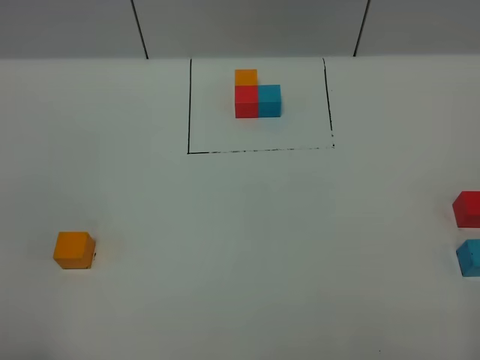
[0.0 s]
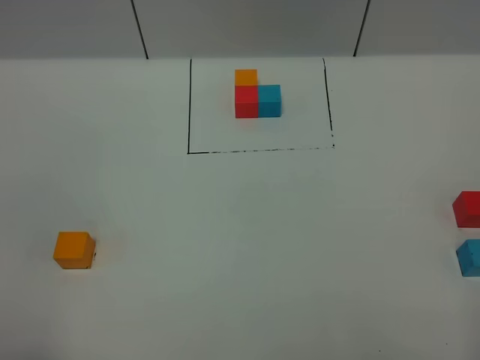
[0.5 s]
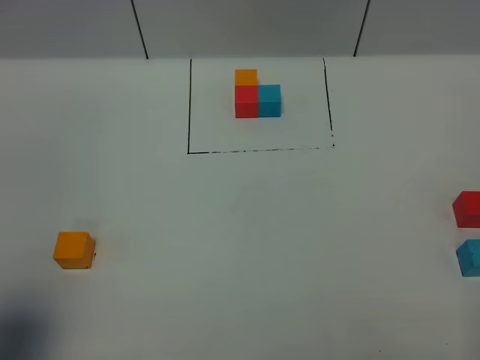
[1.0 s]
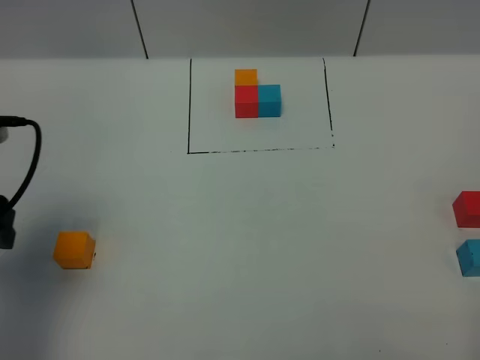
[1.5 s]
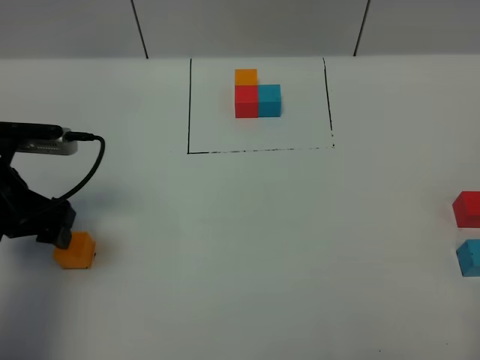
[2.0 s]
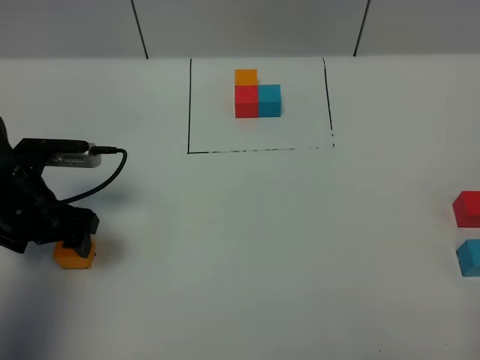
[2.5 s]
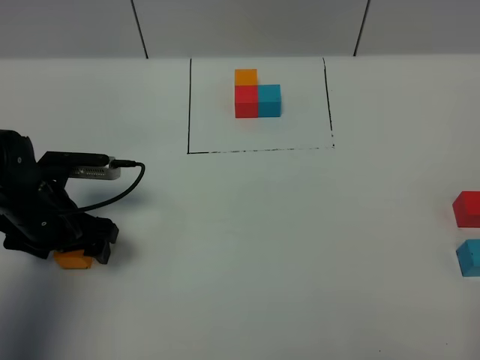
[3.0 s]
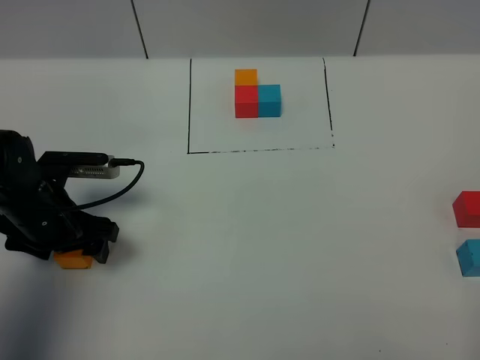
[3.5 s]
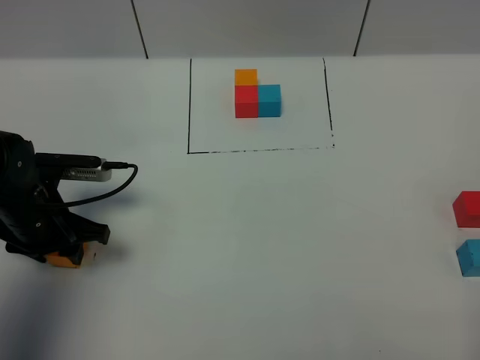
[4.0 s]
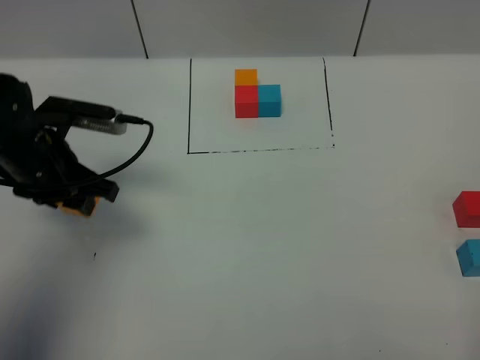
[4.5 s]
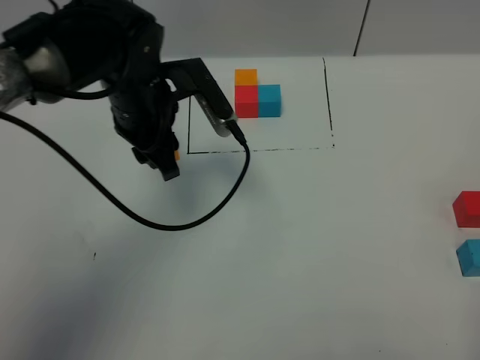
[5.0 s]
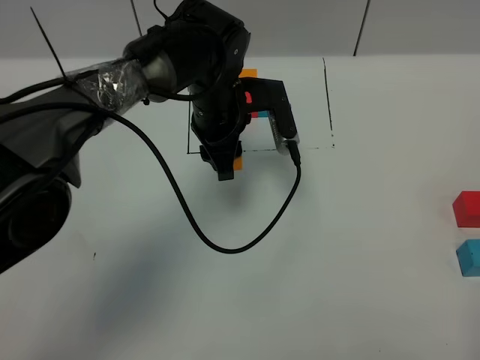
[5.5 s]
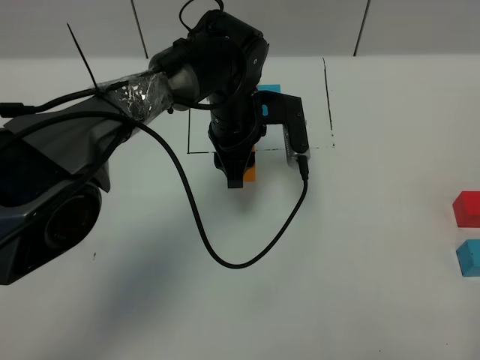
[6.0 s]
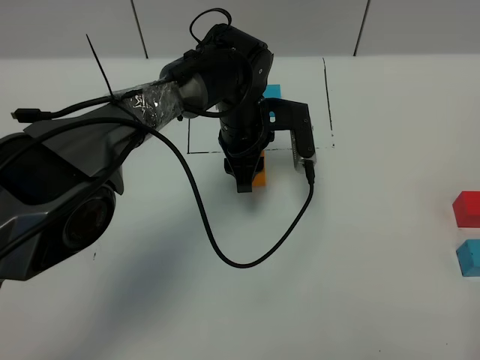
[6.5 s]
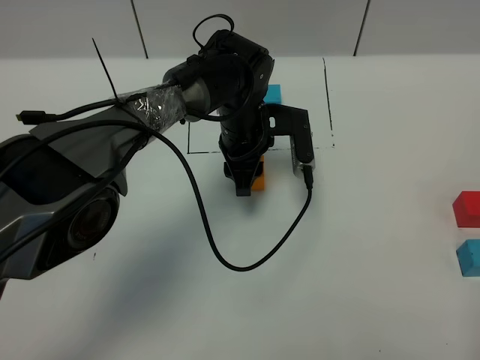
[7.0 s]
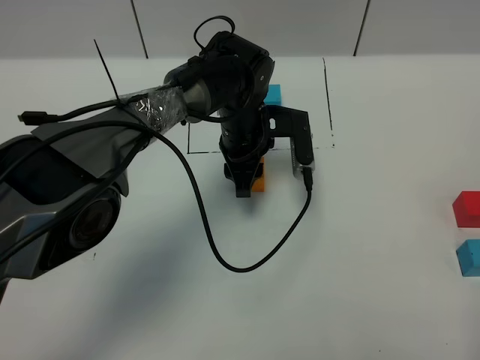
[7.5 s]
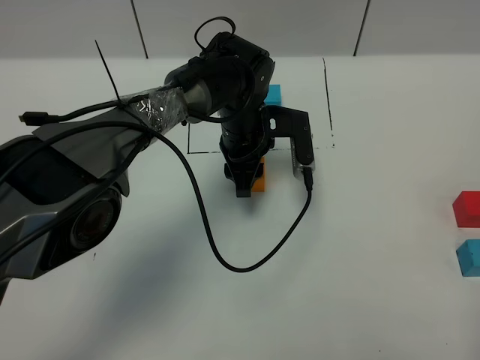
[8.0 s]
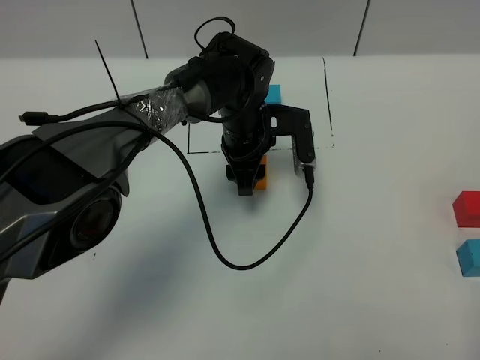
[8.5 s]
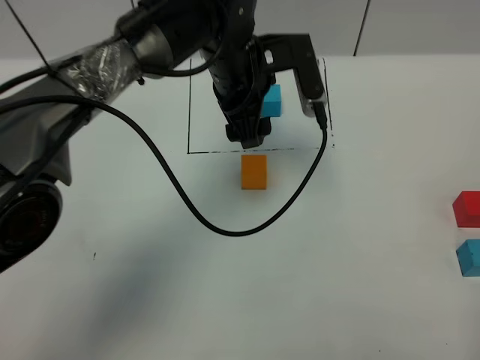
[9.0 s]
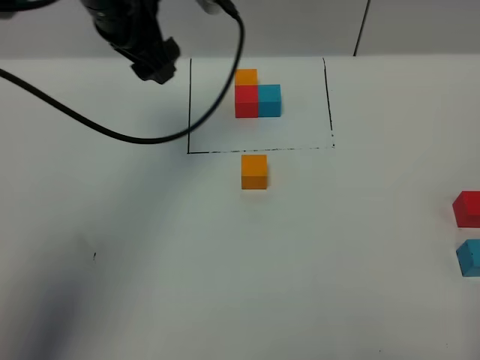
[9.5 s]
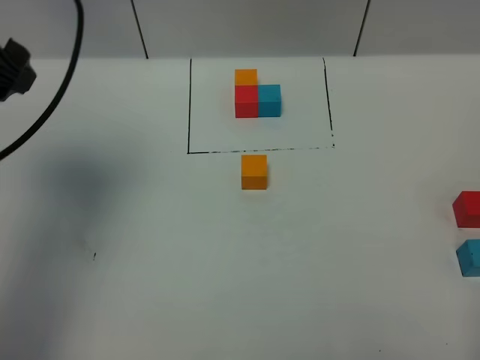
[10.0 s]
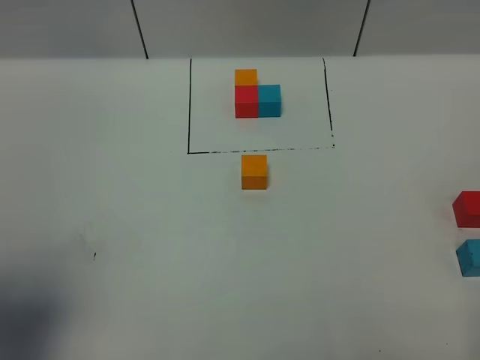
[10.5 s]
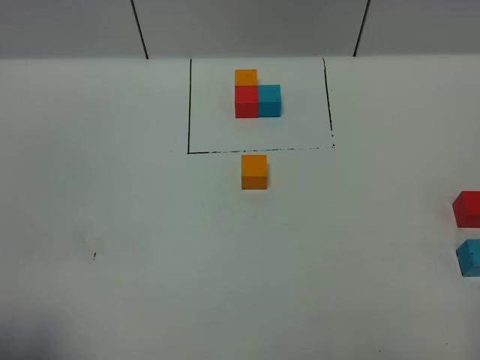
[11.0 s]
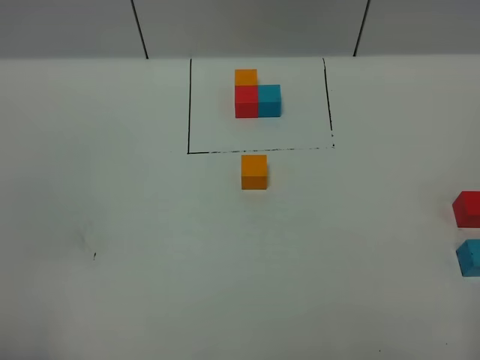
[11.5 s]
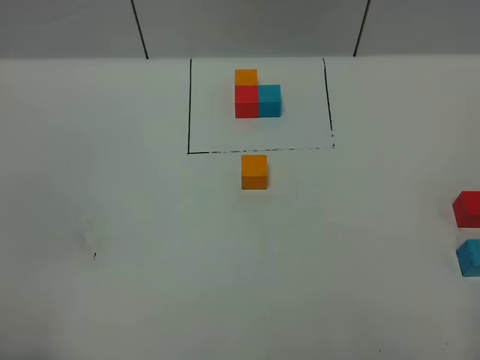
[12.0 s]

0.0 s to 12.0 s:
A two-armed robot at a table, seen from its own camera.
Task of the whole recording: According to the building block template in front, assemble the scattered blocks together.
Step, 0.0 to 8.5 s: Put the orange build block in the center of the table.
0.0 to 2.0 s: The left gripper goes about 25 cm forward.
2.0 to 4.0 s: The left gripper moves downward, roughly 5 cm, and closes.
4.0 to 6.0 s: The left gripper goes about 25 cm to the right and forward.
6.0 to 8.0 s: The grippers make only small movements.
8.0 to 10.0 s: The left gripper is displaced to the left, upward and backward by approximately 40 cm, and opens.
10.0 to 12.0 s: The left gripper is displaced backward by some 30 cm.

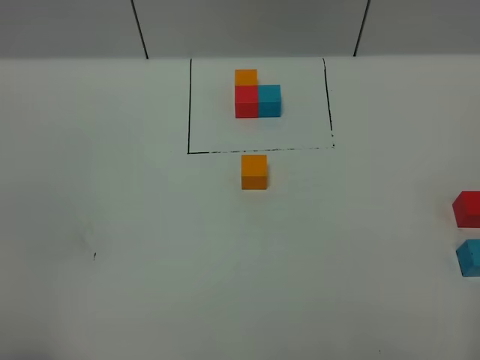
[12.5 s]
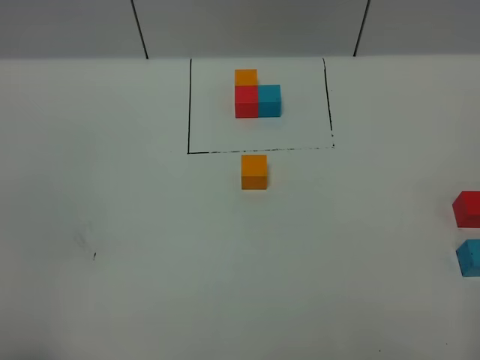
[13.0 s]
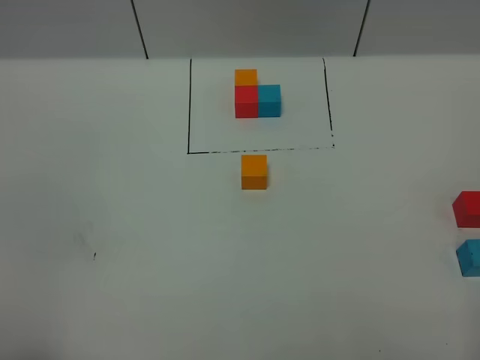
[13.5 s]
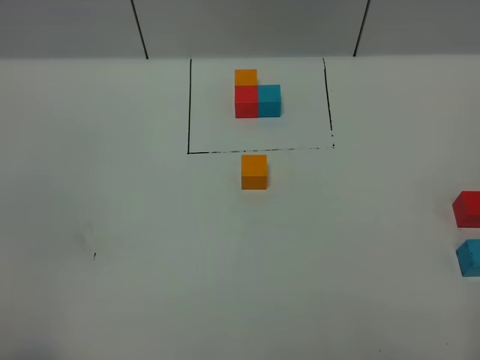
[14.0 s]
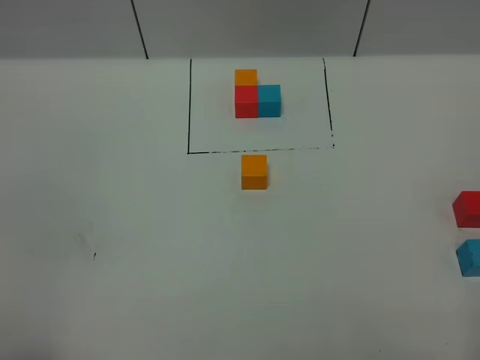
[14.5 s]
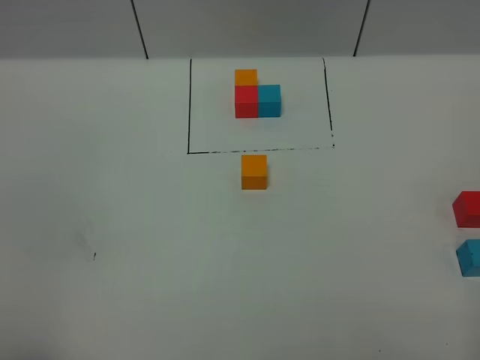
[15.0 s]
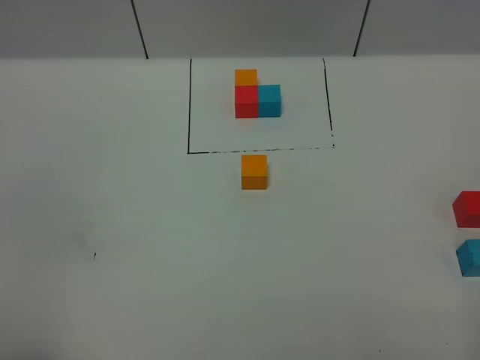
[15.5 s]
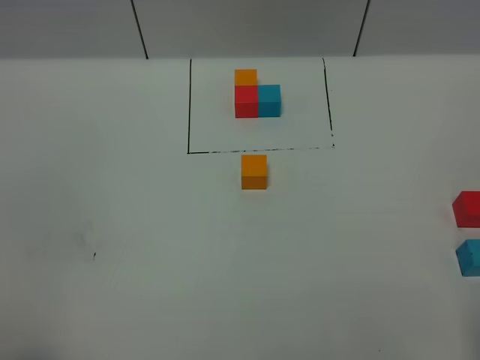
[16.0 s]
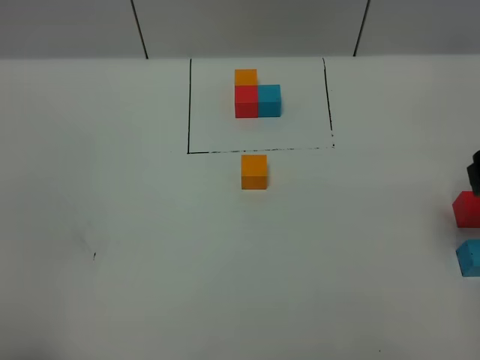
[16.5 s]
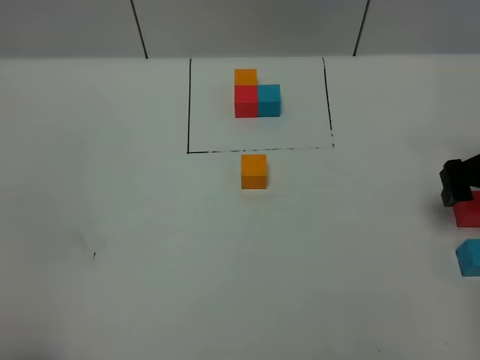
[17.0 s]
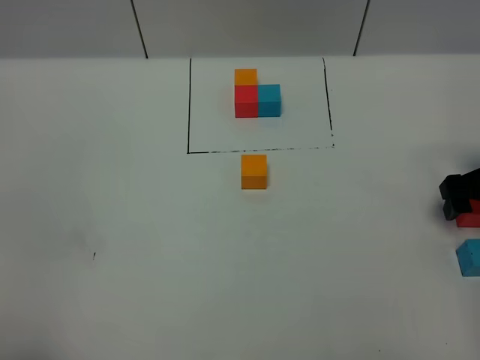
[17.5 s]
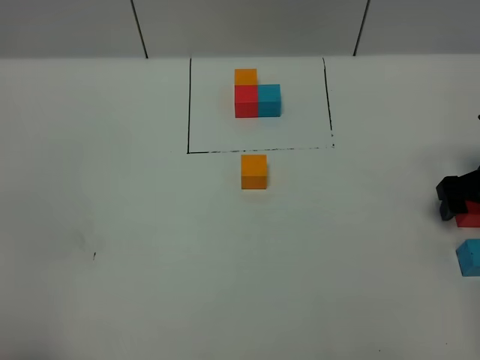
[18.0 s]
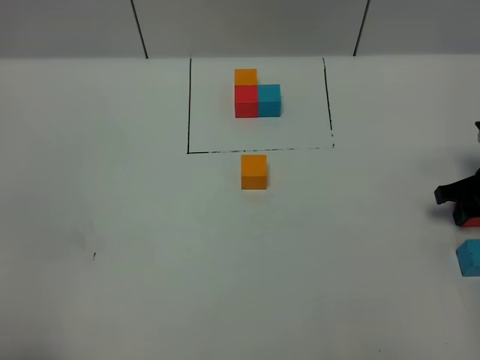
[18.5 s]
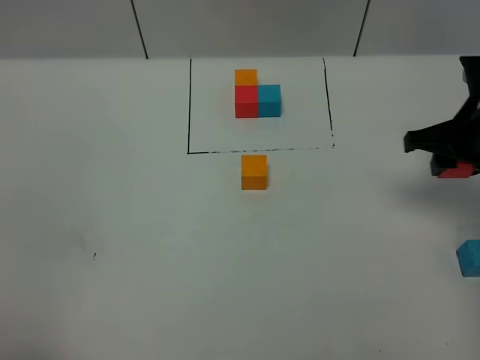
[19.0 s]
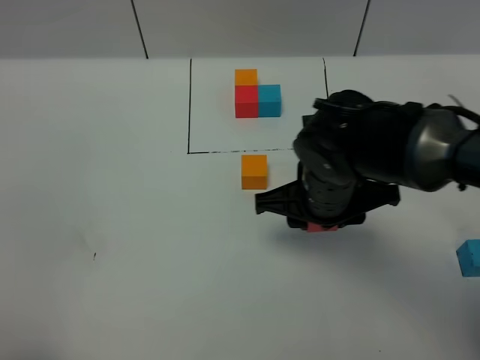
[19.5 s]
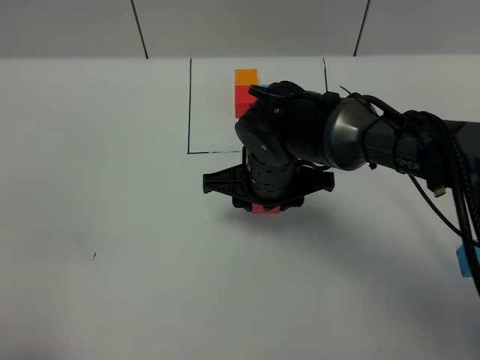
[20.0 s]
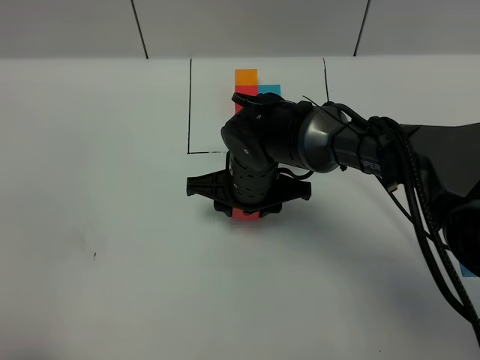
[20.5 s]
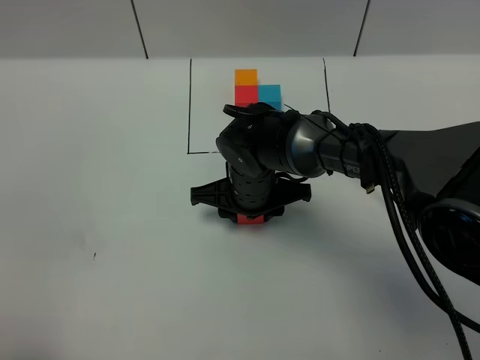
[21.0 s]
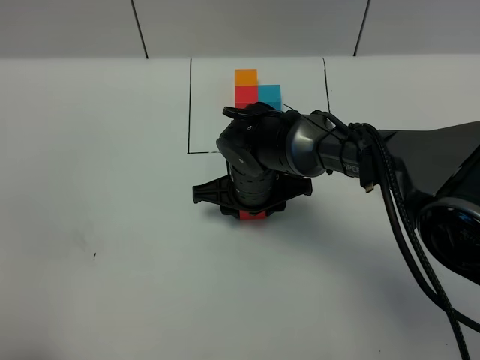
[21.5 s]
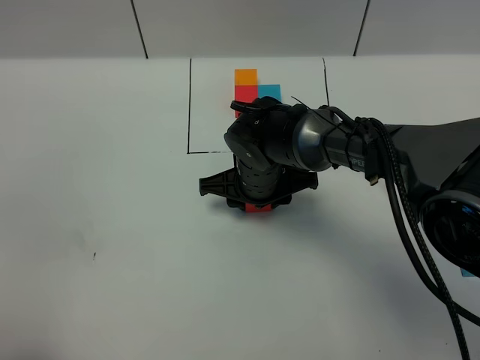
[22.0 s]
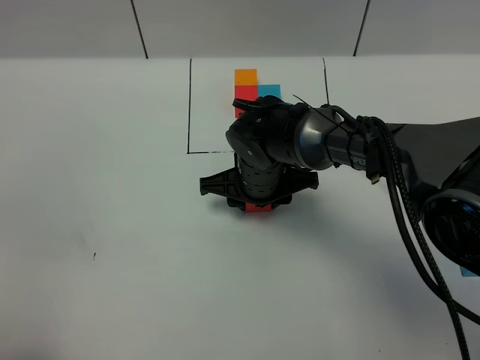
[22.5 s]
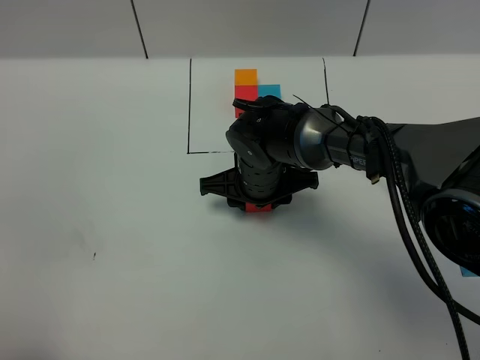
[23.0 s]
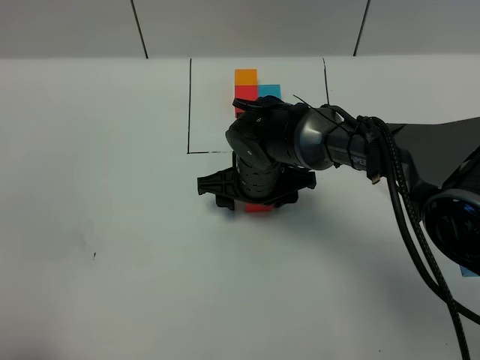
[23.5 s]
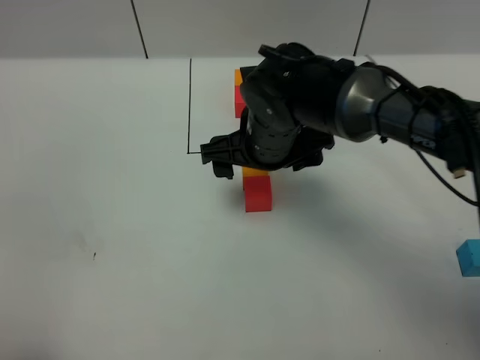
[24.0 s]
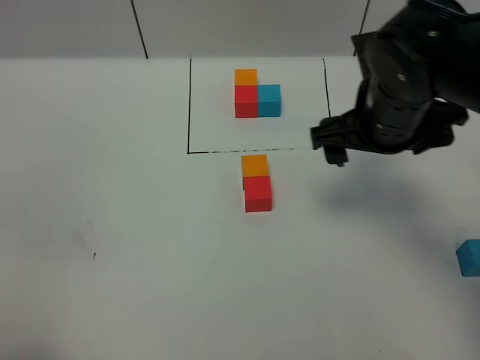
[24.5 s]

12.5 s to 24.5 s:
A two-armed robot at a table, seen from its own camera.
Task of the whole recording: According to the building block template in front, assemble the scattered blocks together.
Step, 12.5 to 23.5 s: Put the red build block on the behind of the orange build block.
12.5 to 14.5 s: Neither gripper changes place.
16.5 to 18.5 s: The right gripper travels downward and forward by approximately 15 cm, and closes up.
18.5 to 20.5 s: The right gripper is displaced to the left by some 35 cm.
20.5 to 22.5 s: The grippers make only small movements.
22.5 to 24.5 s: The right gripper shifts some 20 cm upward and to the right, and opens.

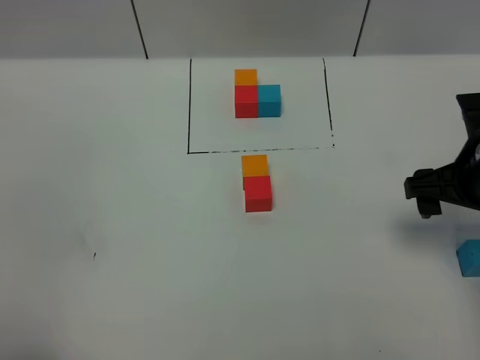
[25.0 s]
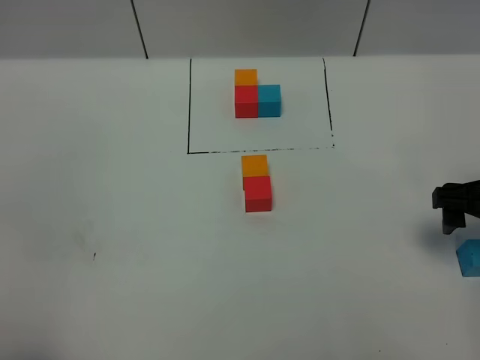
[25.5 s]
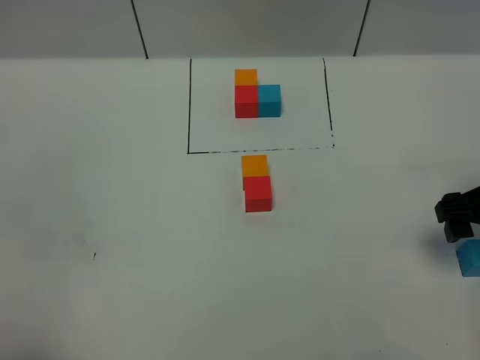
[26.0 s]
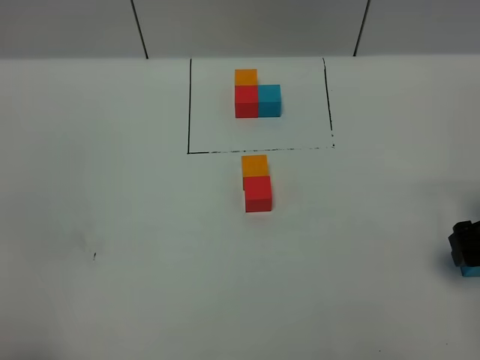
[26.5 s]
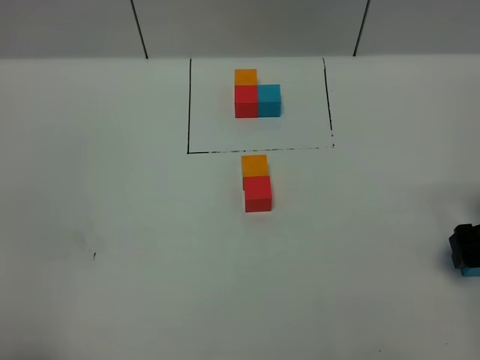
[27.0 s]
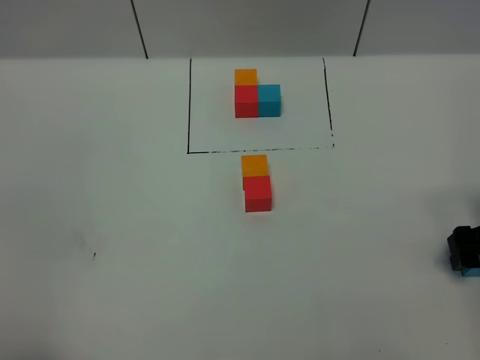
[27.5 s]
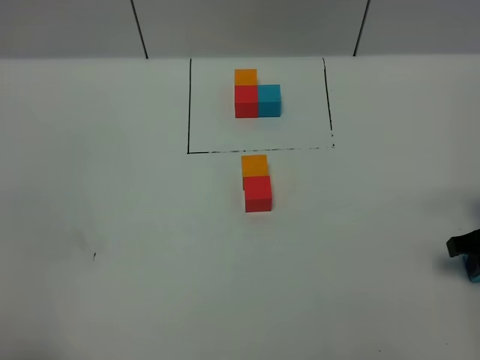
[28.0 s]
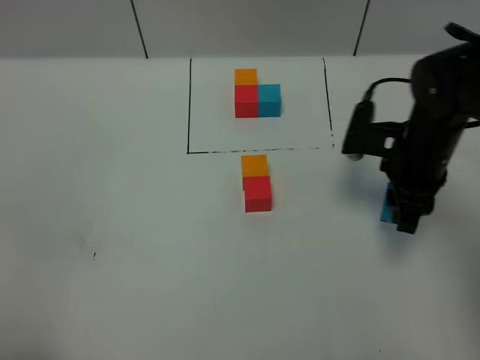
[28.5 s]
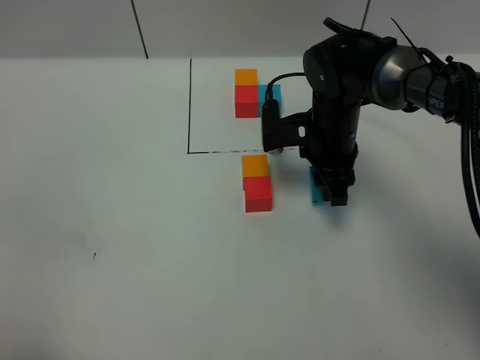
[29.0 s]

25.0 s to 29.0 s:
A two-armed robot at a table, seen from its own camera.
Task of the whole recording: According to the building block template in front, assemble the scattered blocks together.
25.0 to 27.0 s: The right gripper is displaced downward and to the right by approximately 10 cm.
27.0 to 29.0 s: The right gripper heads to the left and forward, covering about 25 cm, and closes its fingers.
